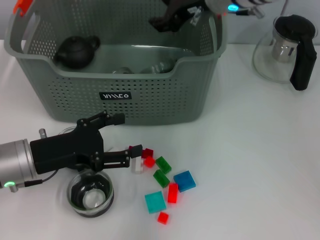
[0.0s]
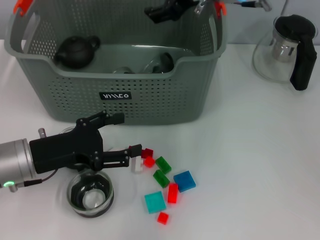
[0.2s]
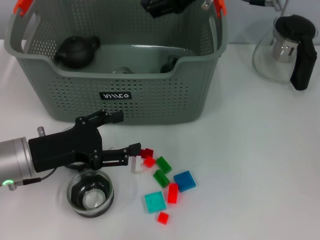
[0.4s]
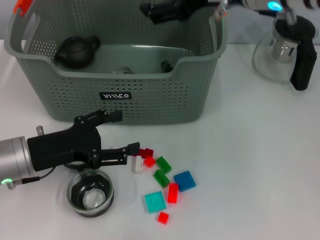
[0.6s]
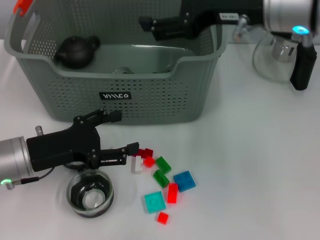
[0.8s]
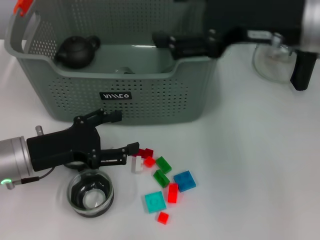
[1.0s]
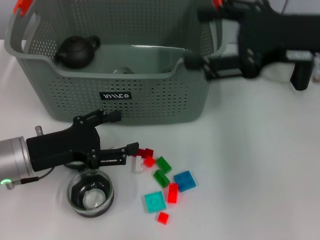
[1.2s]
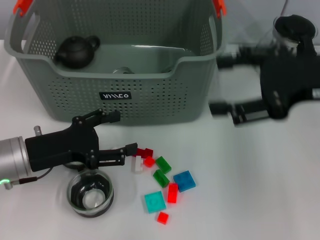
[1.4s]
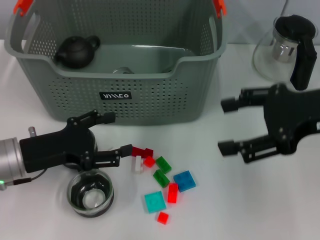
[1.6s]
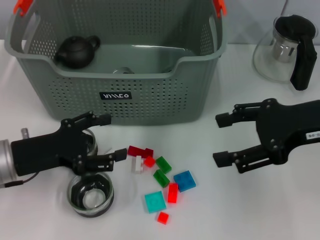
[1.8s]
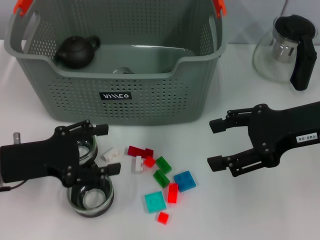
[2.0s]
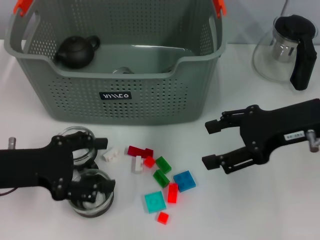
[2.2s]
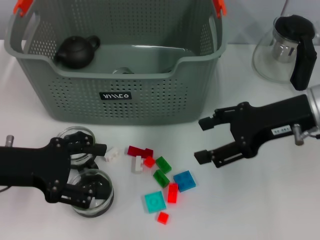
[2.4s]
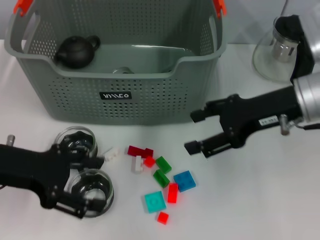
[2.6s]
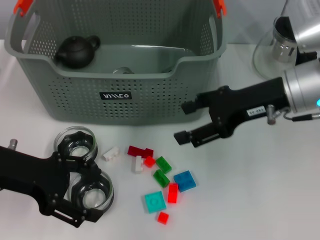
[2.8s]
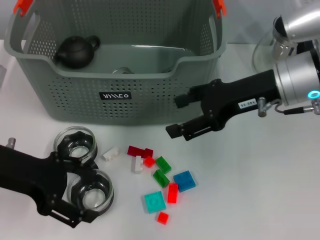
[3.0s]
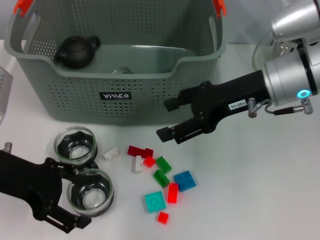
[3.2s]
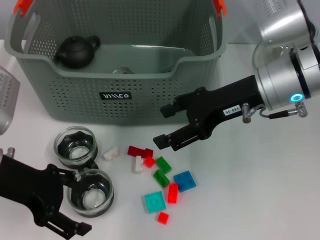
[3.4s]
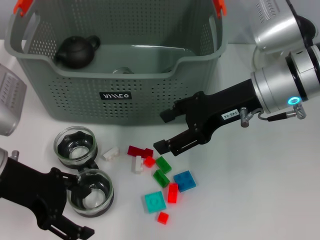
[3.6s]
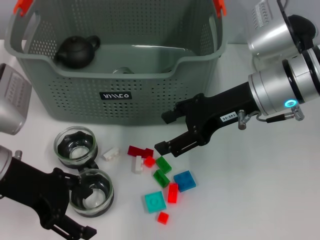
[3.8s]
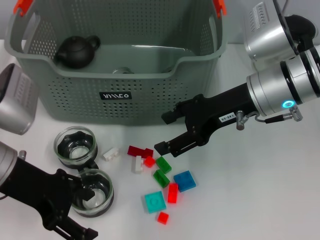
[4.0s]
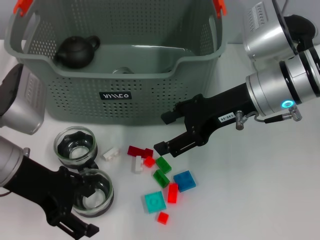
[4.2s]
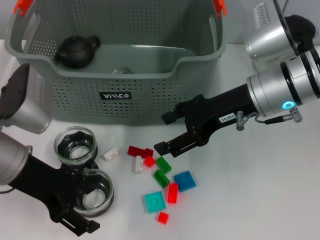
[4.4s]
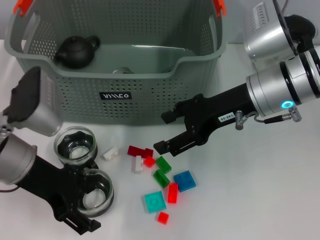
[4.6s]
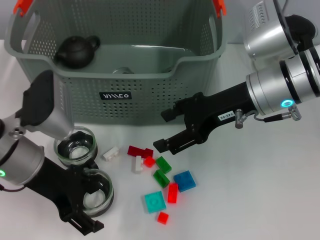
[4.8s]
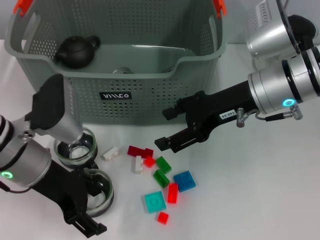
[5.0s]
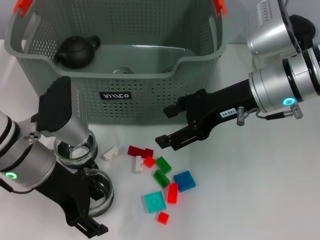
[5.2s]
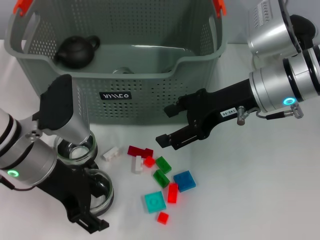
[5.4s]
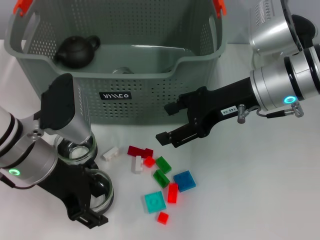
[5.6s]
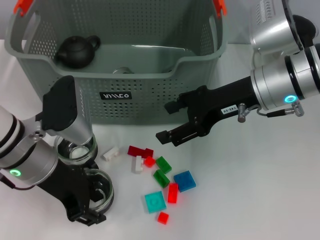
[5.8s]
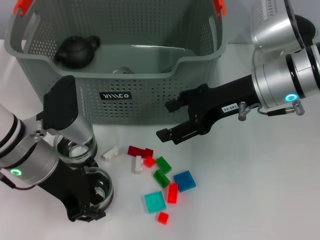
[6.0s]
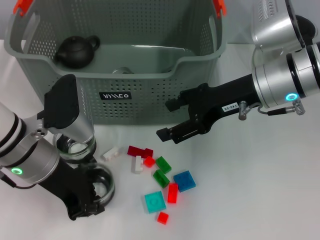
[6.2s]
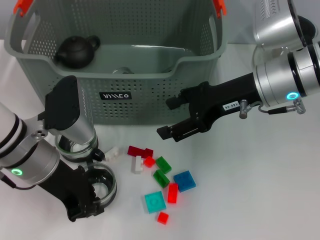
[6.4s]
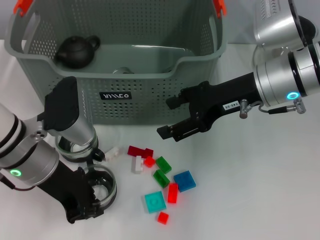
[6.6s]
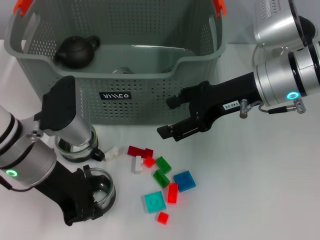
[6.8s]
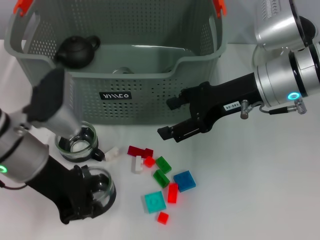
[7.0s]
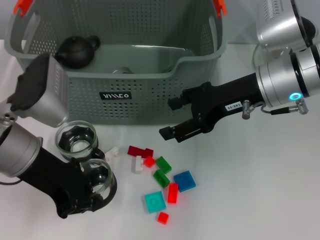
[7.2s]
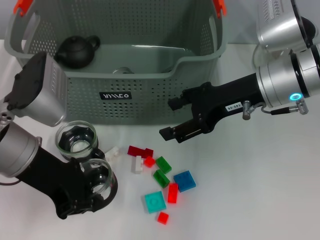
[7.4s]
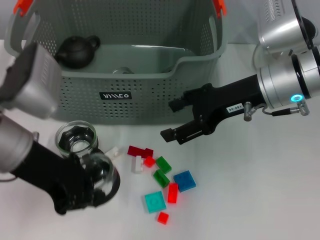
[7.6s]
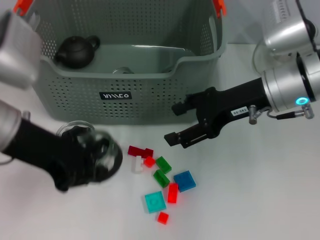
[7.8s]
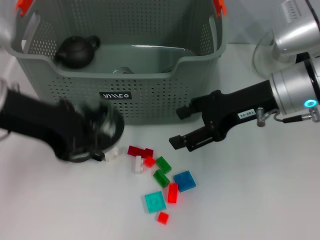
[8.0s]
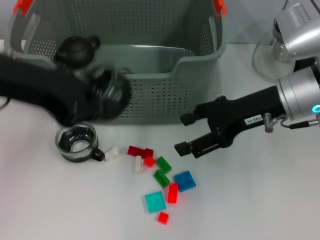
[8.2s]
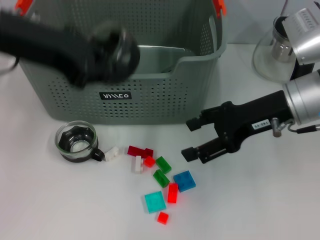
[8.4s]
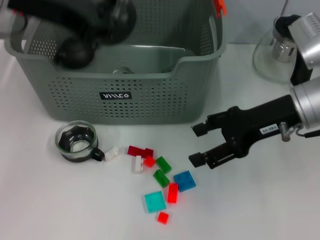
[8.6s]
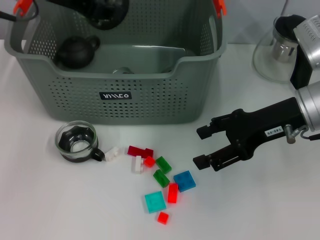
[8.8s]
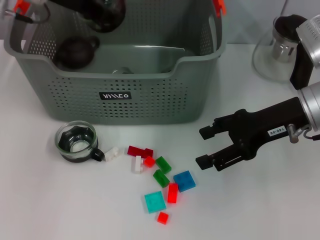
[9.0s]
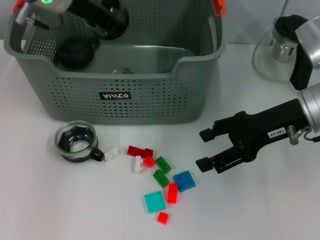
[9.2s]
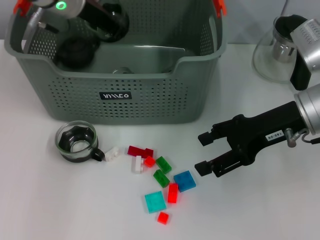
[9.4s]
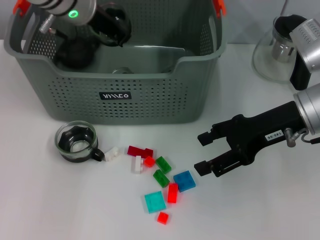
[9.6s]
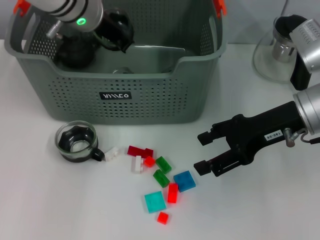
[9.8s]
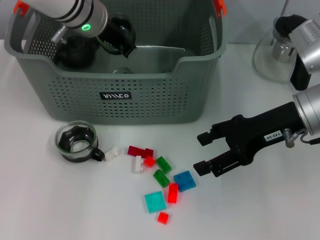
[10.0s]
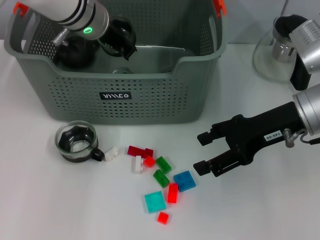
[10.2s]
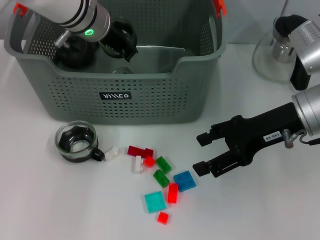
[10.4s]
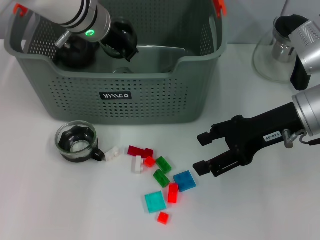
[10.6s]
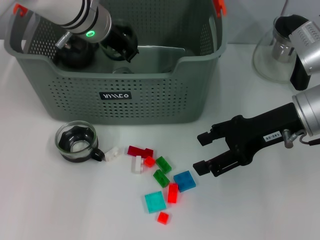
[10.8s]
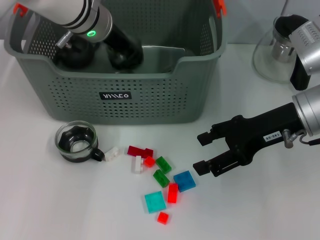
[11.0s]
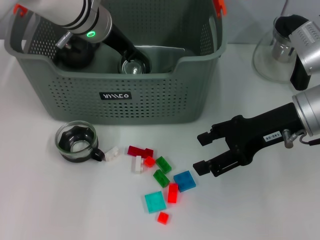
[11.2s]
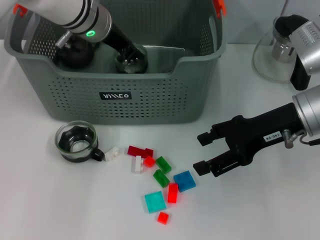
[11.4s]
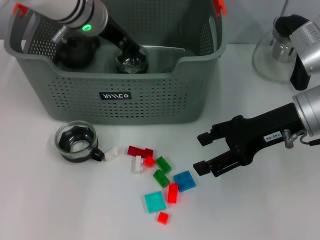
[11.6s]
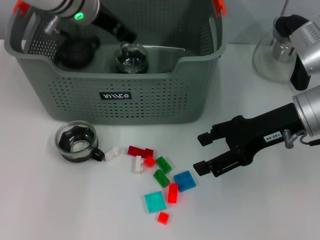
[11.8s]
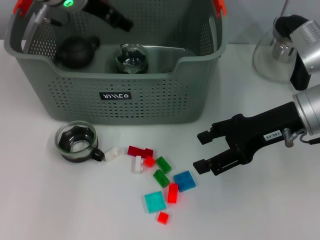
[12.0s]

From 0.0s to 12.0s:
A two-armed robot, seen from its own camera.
Task of the whole recording: pick up the teacup on the table and place it into the storage bin, pick up the block on the table and place it into the storage bin.
Step, from 0.0s to 6.4s: Grasp the cup with left gripper.
Step, from 6.6s to 11.0s: Place the cup in the storage box with left gripper.
From 0.0s to 1.6s: The right gripper heads to the right and backward, covering roughly 20 cm, and opens its fingers.
From 1.6s to 3.0s: The right gripper goes some 10 cm forward and to the left. The left gripper is displaced upward by roughly 10 cm.
From 3.0s to 4.4s: The grippers move only a little.
From 4.4s to 6.0s: The left gripper closes up.
From 6.0s to 7.6s: The left gripper travels upward by some 5 cm, and closes its fingers.
From 7.6s to 9.0s: The right gripper moves approximately 5 cm, while the left gripper shifts roughly 15 cm forward and upward.
From 9.0s to 10.4s: The left gripper goes approximately 10 cm downward and to the right.
From 10.4s to 12.0s: The left gripper opens up.

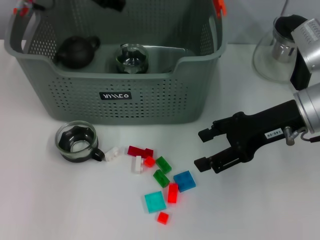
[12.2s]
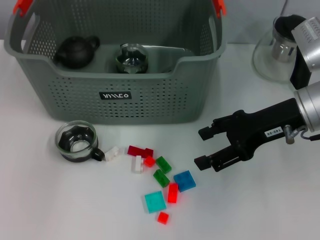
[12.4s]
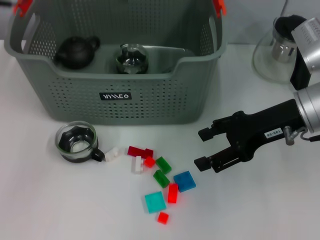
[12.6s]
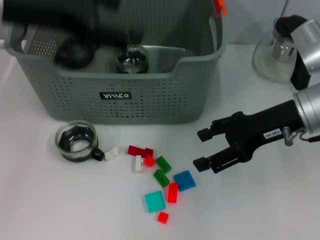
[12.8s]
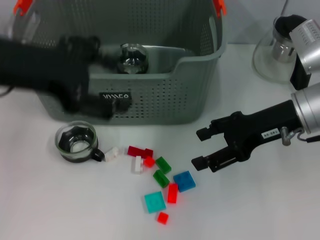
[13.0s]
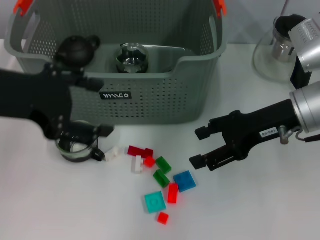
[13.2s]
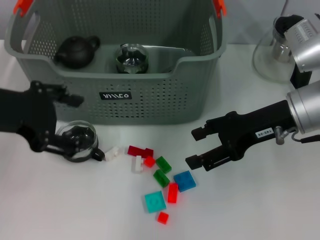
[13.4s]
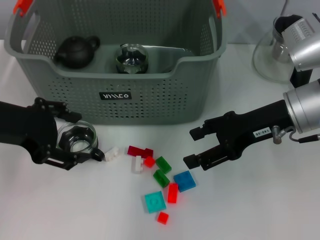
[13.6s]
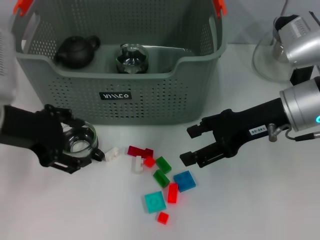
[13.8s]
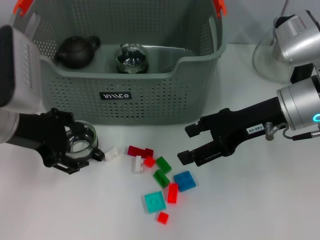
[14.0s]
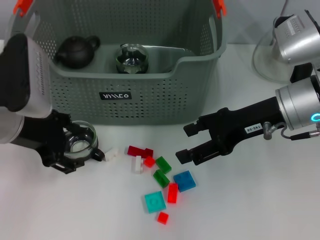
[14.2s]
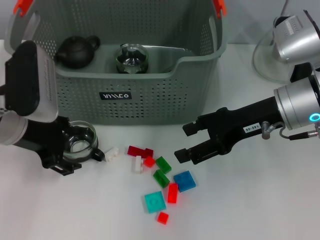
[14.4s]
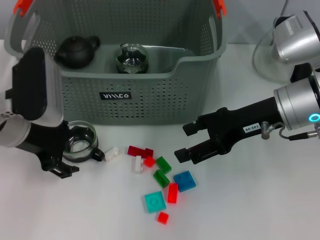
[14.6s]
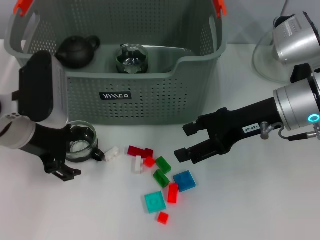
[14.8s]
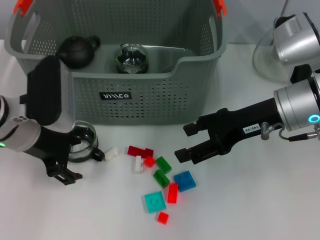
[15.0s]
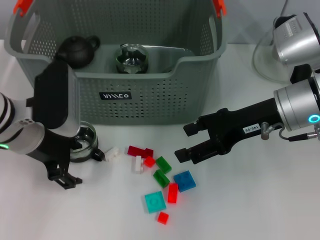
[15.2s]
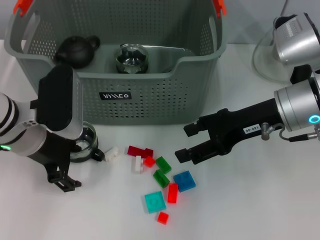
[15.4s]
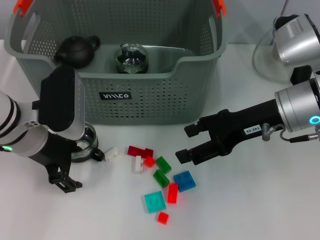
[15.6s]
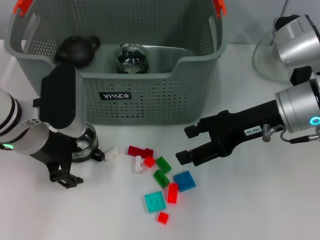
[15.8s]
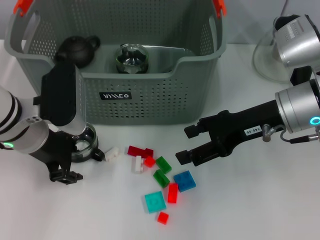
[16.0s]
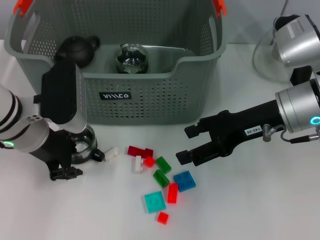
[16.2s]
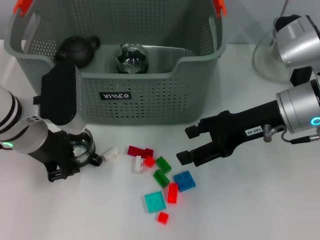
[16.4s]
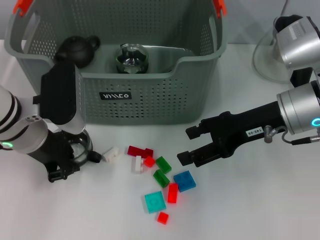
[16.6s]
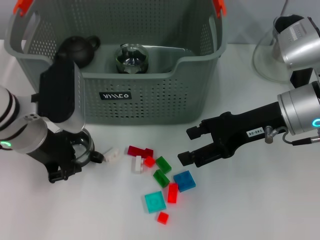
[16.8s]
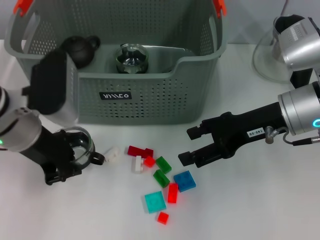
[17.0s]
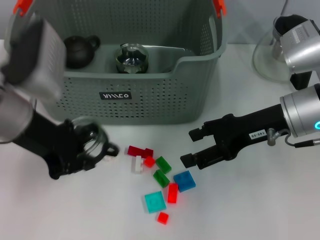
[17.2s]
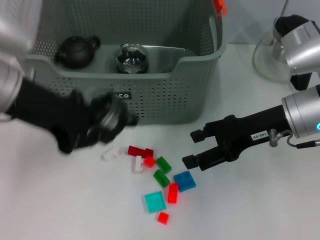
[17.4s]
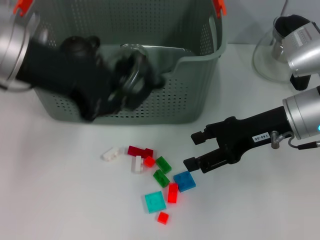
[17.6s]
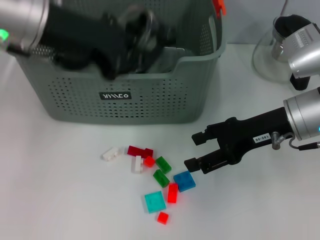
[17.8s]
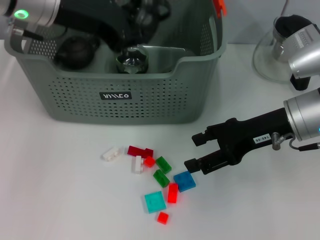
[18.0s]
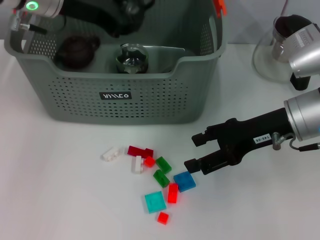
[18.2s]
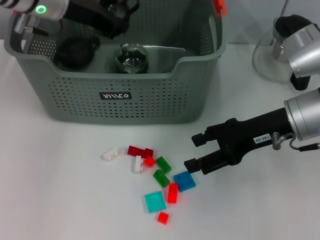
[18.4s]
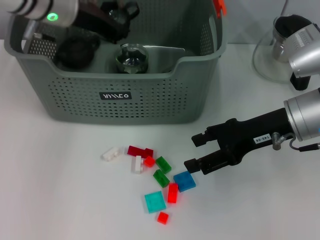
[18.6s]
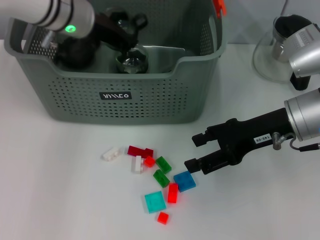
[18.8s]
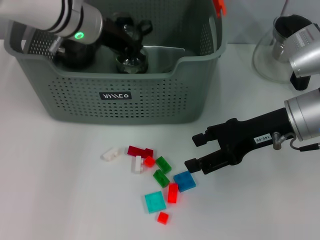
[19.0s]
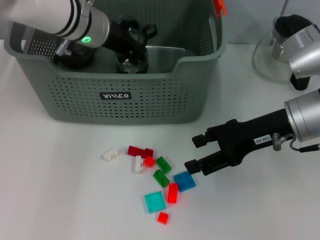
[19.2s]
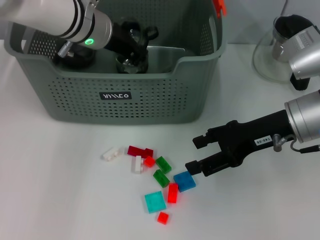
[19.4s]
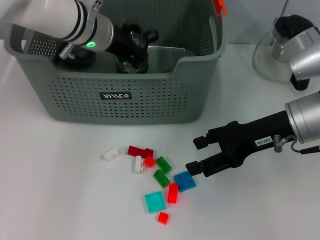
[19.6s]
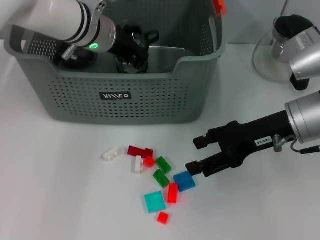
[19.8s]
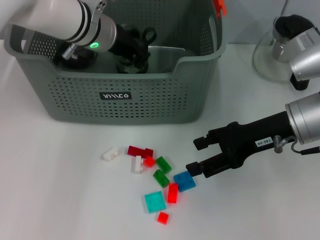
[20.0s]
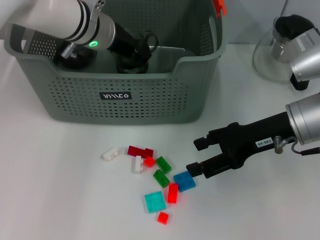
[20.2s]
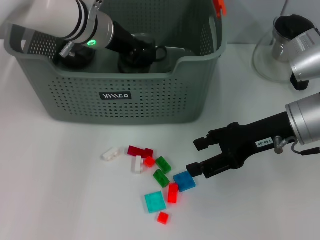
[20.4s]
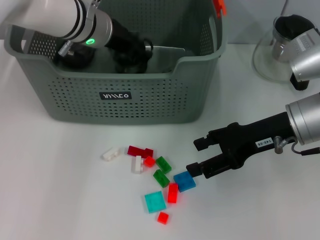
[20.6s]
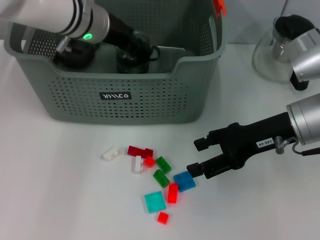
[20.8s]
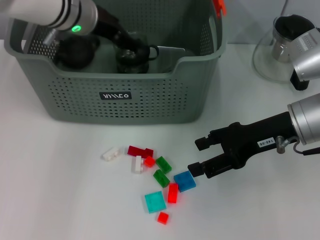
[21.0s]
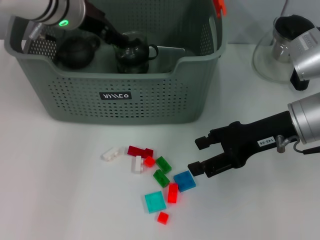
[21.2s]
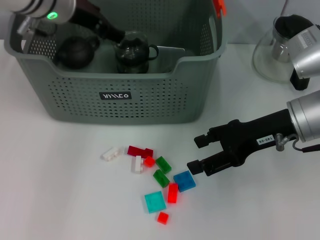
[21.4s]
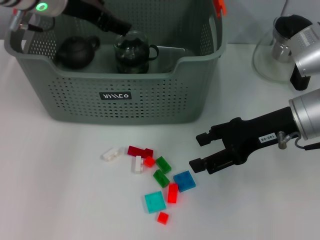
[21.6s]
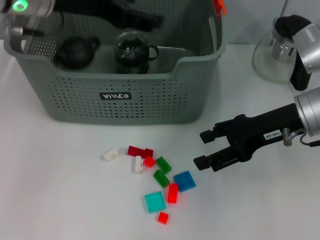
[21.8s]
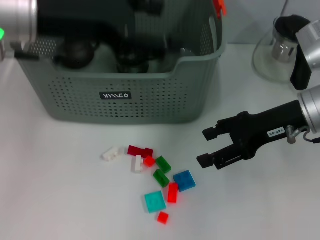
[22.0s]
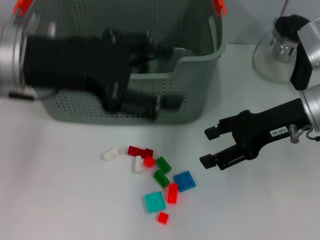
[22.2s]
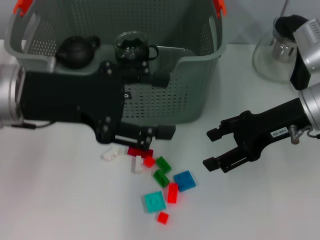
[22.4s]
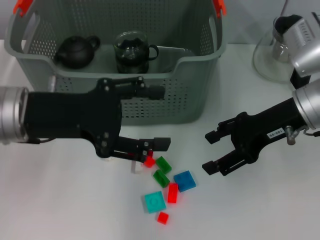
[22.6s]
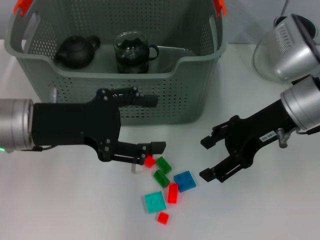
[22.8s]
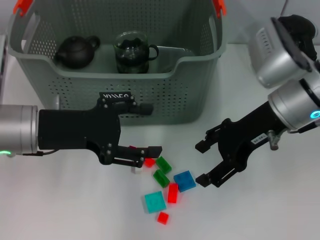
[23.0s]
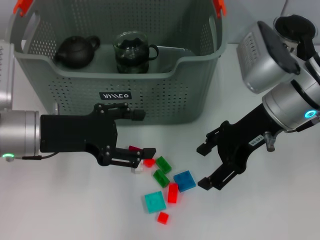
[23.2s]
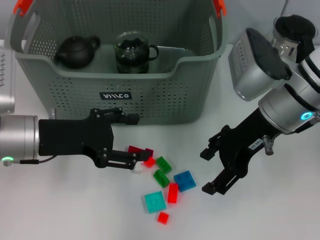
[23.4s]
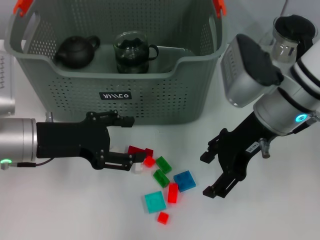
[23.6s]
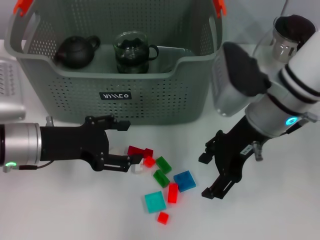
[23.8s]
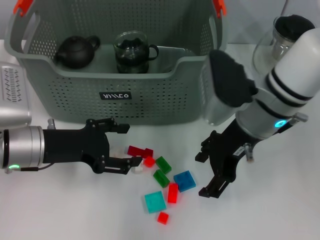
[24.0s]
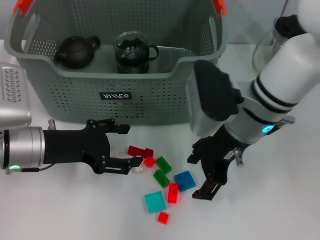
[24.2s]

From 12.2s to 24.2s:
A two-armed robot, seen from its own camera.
Task of the whole recording: pick up the teacup on the table and place it into the storage bin, pick up the block on the table and place it into the storage bin.
Step, from 12.2s to 16.6s: Grasp the cup with left gripper.
Step, from 16.8s to 20.0s: Place the cup in the storage box with left gripper.
From 12.2s to 13.8s: The left gripper goes about 20 cm backward, to the left and downward.
From 13.8s to 15.2s: The left gripper shifts about 5 cm downward.
From 15.2s to 16.6s: The left gripper closes.
From 16.6s to 18.2s: The left gripper shifts some 15 cm upward and forward.
From 18.2s to 19.8s: The left gripper is displaced downward and to the right by approximately 10 cm.
From 19.8s to 21.2s: The left gripper opens.
From 21.2s to 22.6s: The left gripper heads backward, covering some 15 cm.
From 22.6s to 24.2s: The right gripper moves to the left, approximately 10 cm. The left gripper goes some 10 cm downward.
